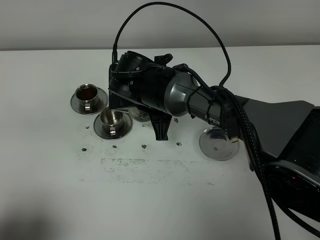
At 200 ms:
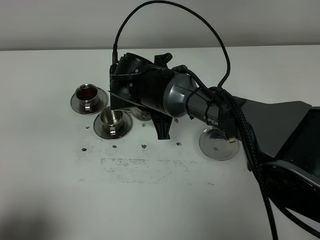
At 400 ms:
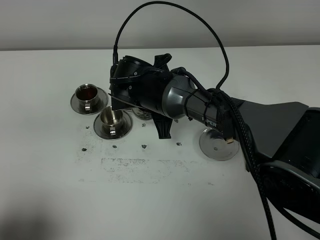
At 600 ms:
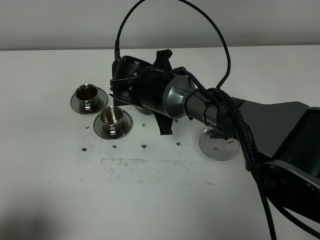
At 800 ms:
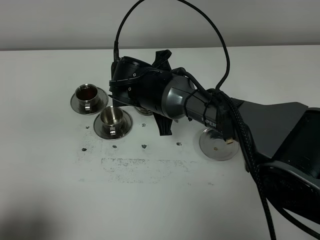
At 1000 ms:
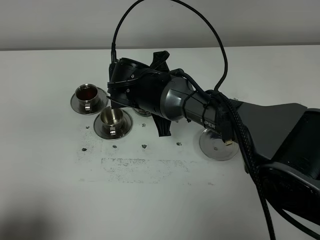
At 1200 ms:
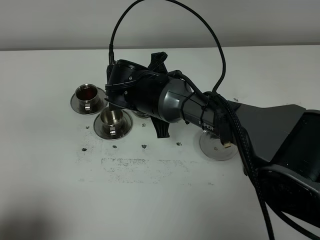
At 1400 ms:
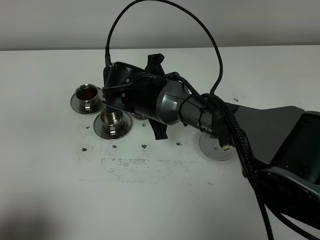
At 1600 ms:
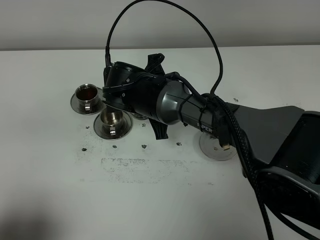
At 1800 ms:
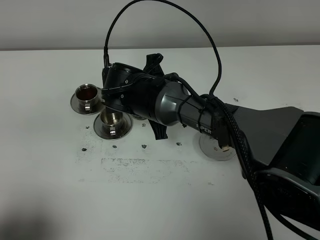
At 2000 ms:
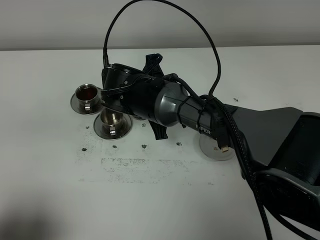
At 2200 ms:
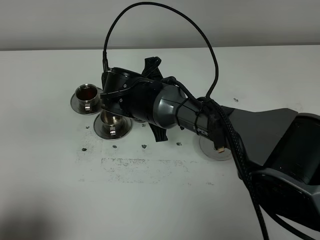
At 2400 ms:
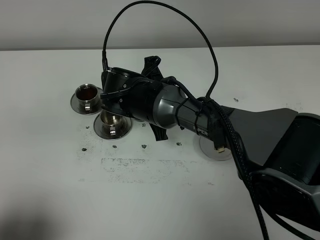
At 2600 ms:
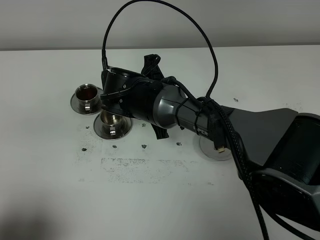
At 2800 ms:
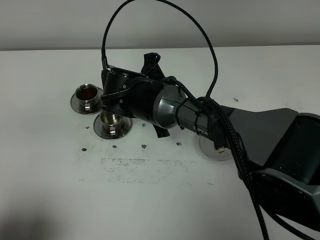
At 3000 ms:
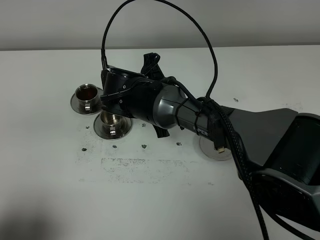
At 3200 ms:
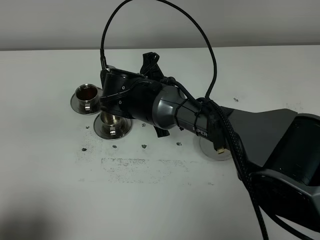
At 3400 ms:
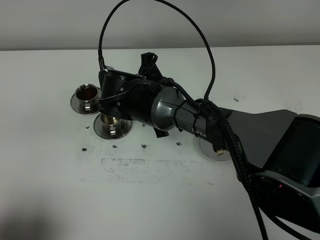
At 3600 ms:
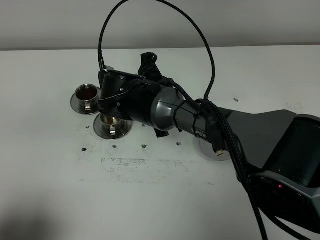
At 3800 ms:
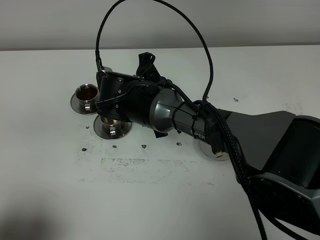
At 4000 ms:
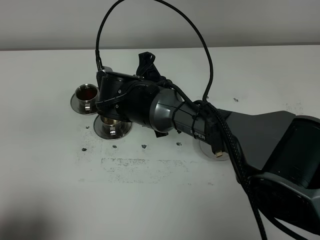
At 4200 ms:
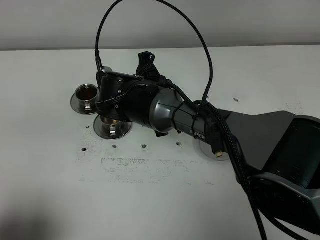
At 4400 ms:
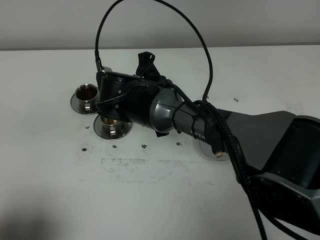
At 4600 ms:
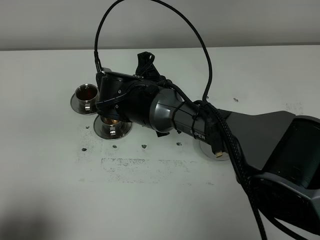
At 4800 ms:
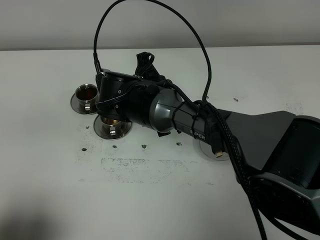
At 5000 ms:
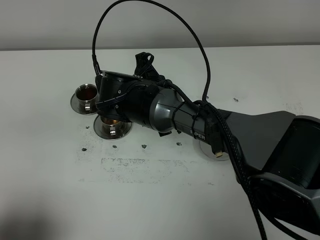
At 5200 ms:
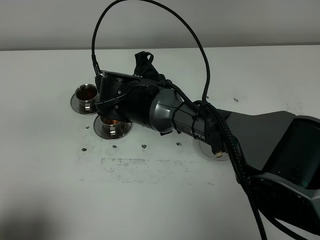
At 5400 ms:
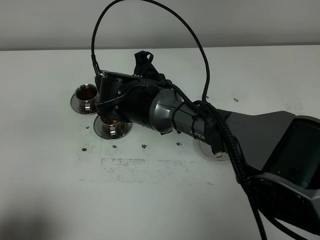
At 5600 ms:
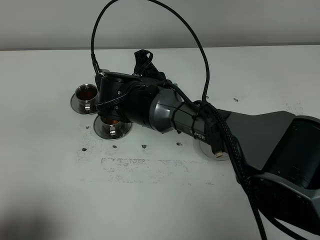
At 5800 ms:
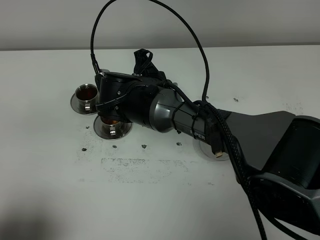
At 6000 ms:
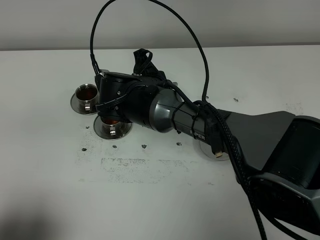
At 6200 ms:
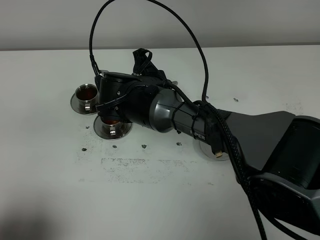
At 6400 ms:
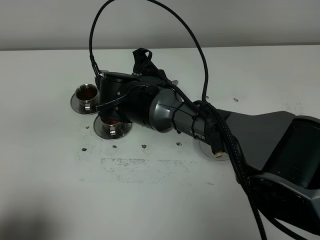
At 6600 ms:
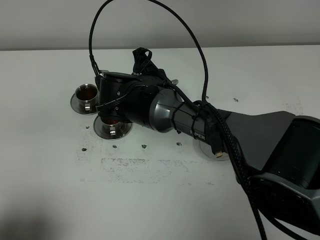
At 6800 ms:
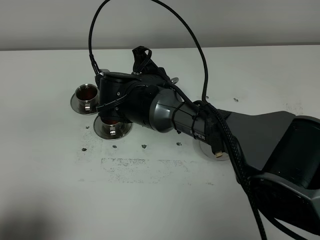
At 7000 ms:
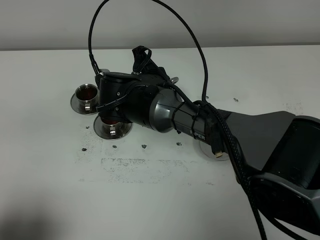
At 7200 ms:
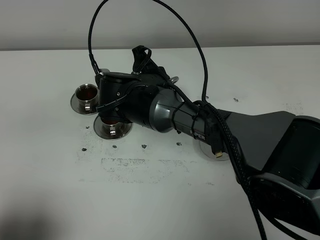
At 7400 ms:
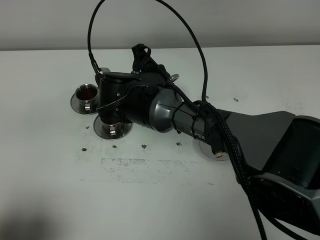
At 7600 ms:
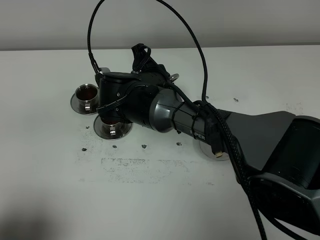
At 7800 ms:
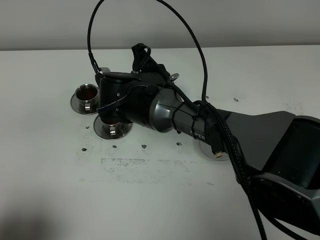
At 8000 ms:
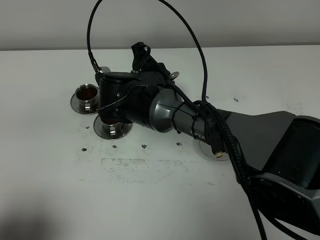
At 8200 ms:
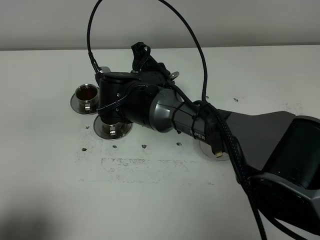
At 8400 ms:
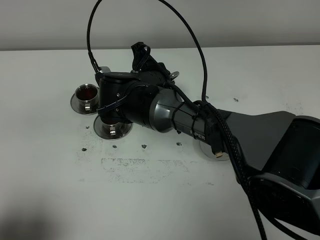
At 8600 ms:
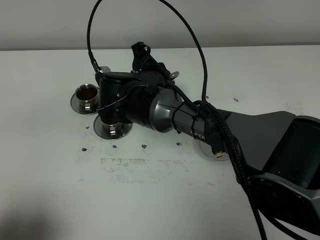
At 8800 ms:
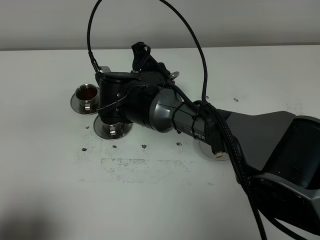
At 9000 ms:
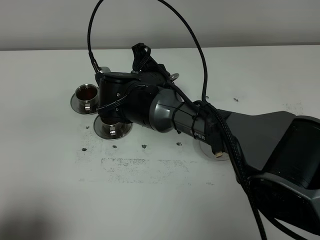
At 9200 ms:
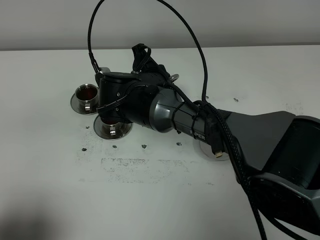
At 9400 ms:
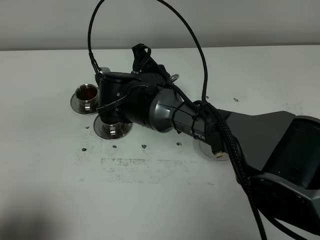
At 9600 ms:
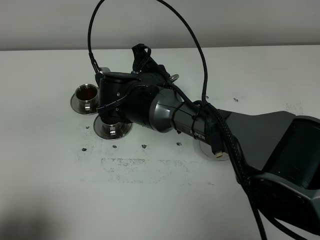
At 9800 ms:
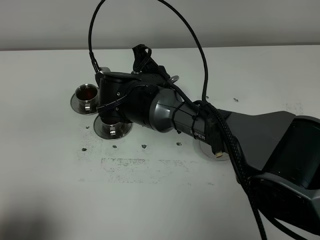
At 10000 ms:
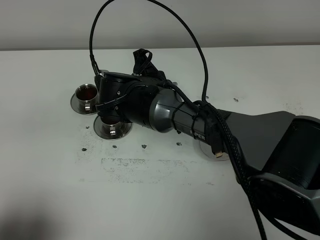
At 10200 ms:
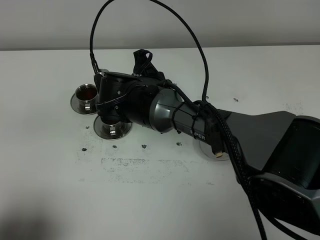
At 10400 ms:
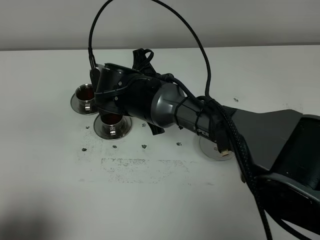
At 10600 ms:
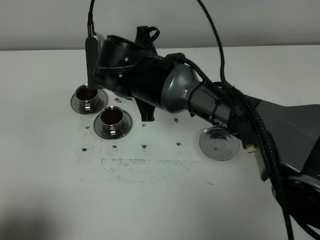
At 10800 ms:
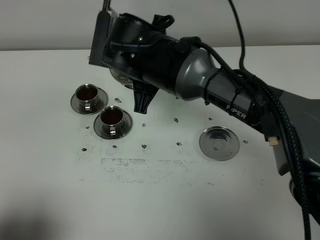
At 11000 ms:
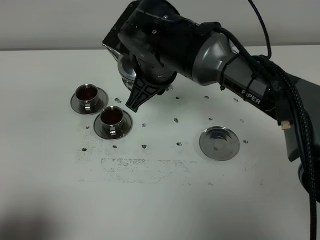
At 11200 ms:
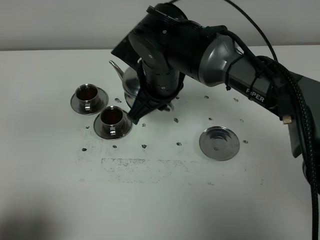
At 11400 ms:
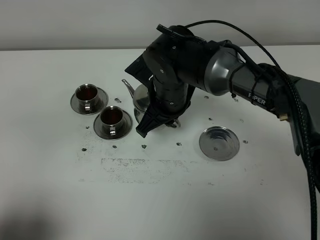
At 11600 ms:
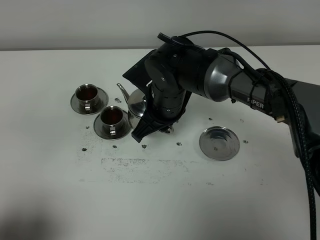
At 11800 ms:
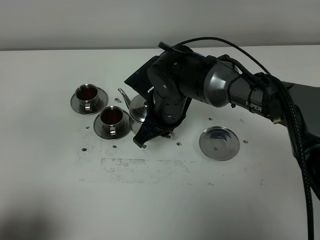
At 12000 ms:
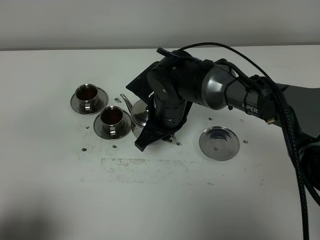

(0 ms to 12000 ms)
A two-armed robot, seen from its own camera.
Task of the whole recording: grasp the stainless steel teapot and pour the tea into the two stainless steel teacups one by one, put the stainless steel teapot back in its original place.
Step, 0 ms - 10400 ms: Pour tea into the teacup with the right gripper.
0 ms - 1600 ms: The grippers make only small movements.
1600 ms - 3000 ms: Both grippers stay about where they are.
3000 ms - 4400 ms: Both grippers stay about where they are.
4400 ms - 7600 ms: The grippers stay close to where they were, moving slightly.
7600 ms - 9000 ms: Both grippers stay about where they are.
9000 ms - 10400 ms: The grippers make only small movements.
10400 ms - 12000 ms: The right gripper shifts about 5 cm to the right.

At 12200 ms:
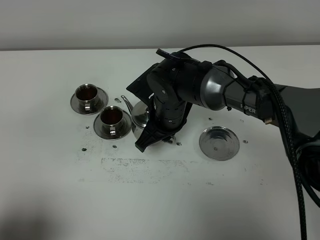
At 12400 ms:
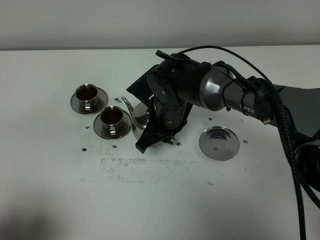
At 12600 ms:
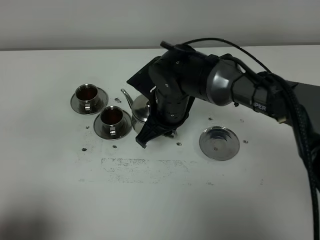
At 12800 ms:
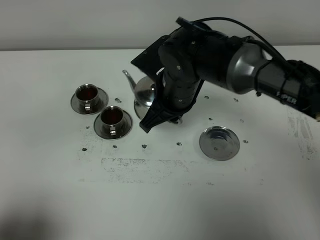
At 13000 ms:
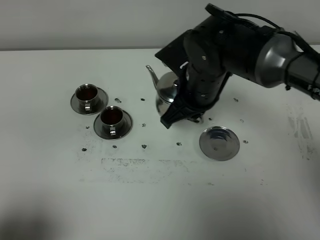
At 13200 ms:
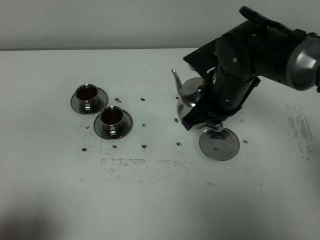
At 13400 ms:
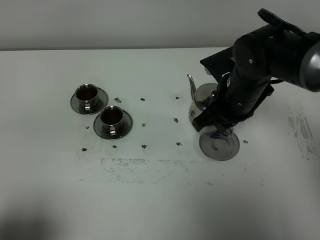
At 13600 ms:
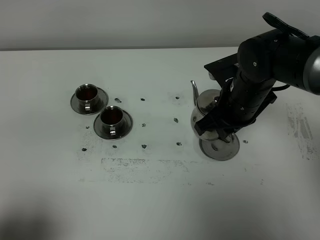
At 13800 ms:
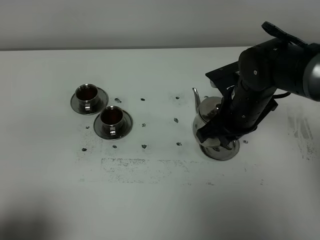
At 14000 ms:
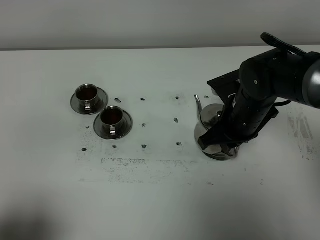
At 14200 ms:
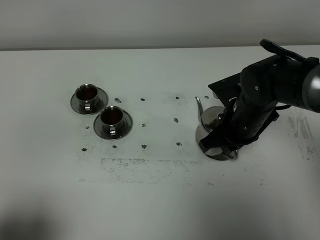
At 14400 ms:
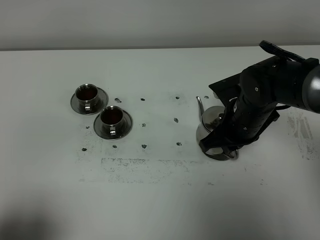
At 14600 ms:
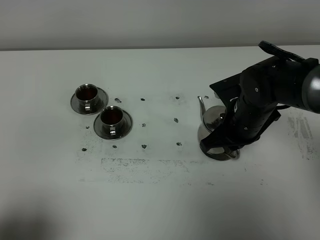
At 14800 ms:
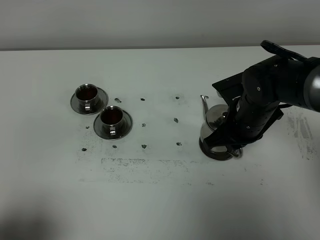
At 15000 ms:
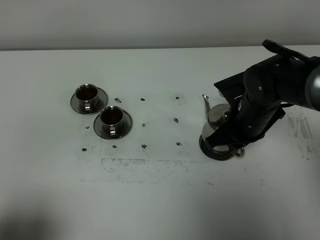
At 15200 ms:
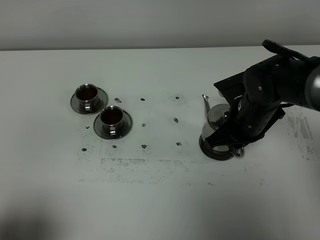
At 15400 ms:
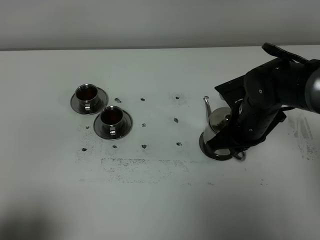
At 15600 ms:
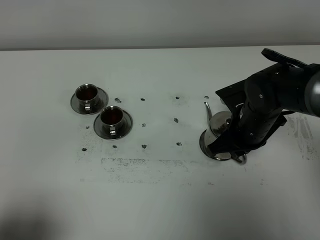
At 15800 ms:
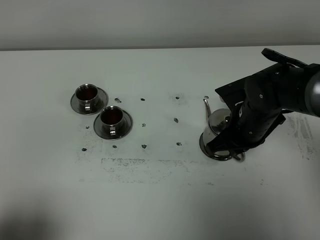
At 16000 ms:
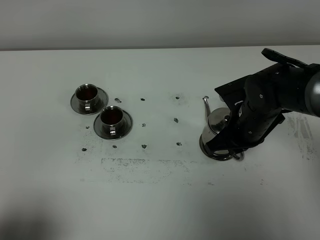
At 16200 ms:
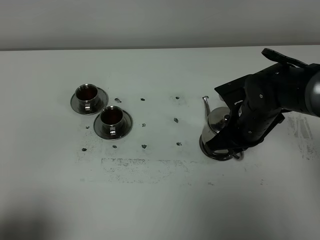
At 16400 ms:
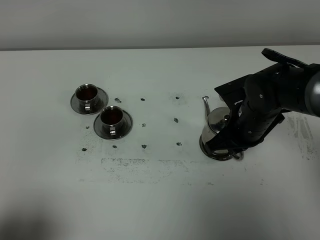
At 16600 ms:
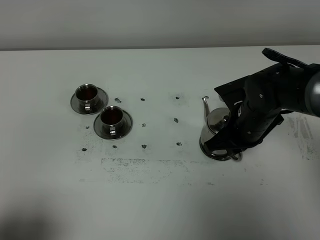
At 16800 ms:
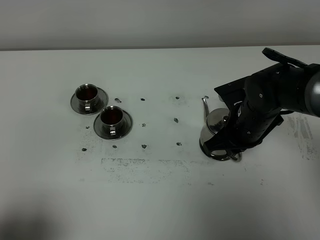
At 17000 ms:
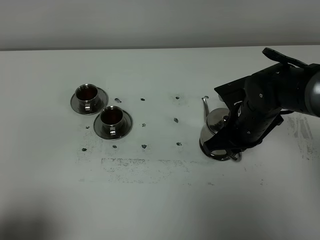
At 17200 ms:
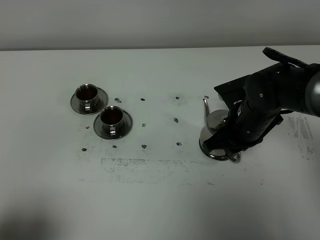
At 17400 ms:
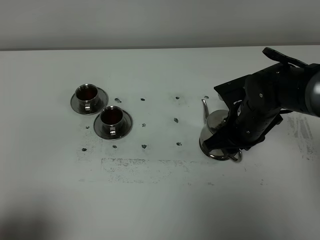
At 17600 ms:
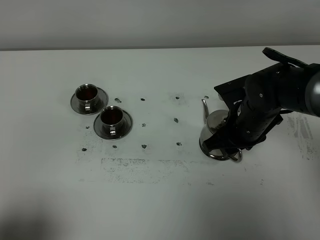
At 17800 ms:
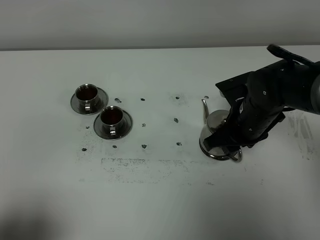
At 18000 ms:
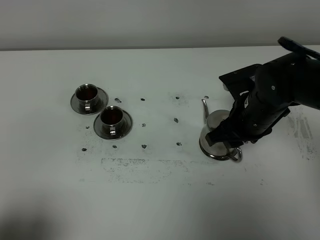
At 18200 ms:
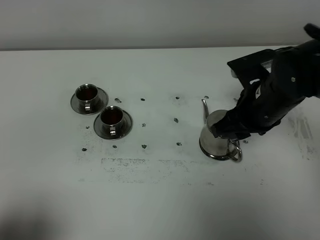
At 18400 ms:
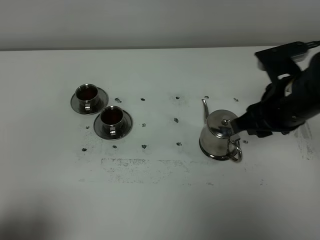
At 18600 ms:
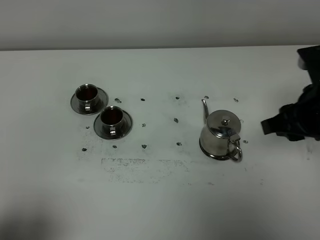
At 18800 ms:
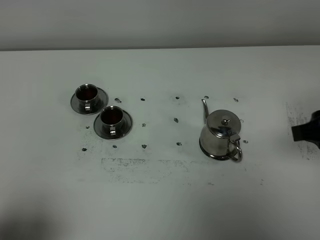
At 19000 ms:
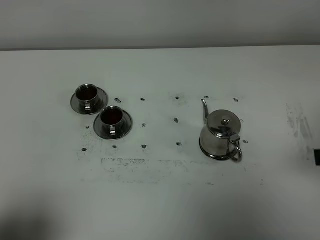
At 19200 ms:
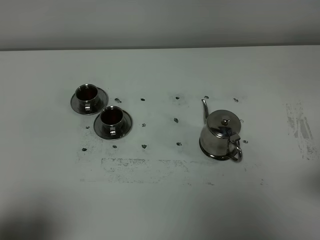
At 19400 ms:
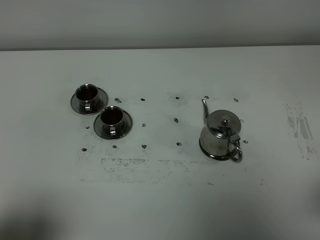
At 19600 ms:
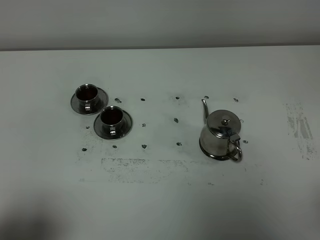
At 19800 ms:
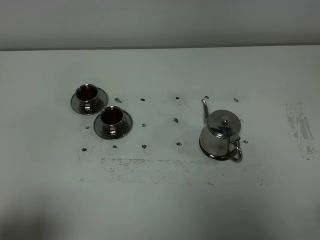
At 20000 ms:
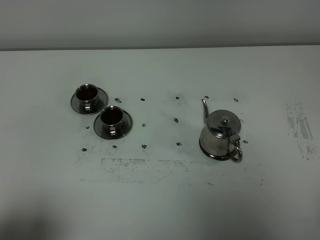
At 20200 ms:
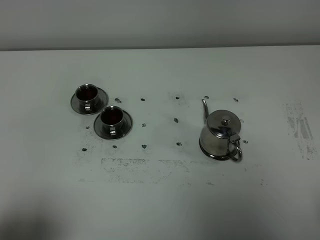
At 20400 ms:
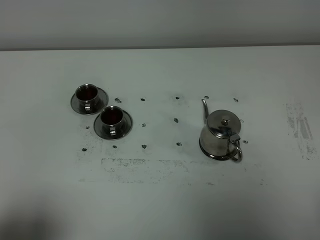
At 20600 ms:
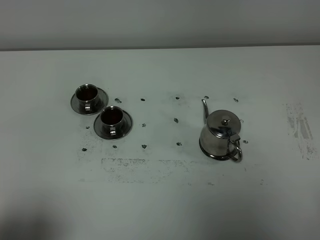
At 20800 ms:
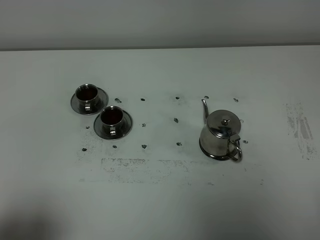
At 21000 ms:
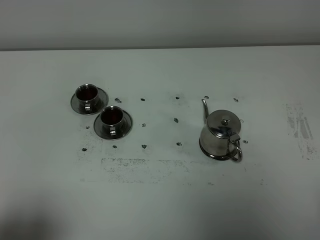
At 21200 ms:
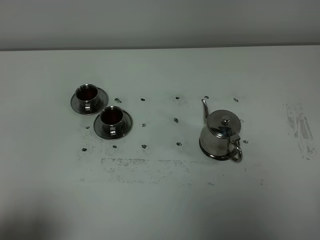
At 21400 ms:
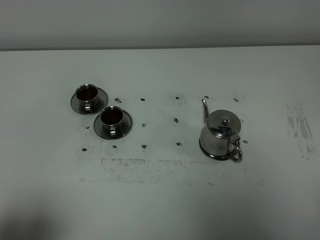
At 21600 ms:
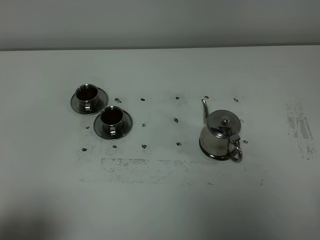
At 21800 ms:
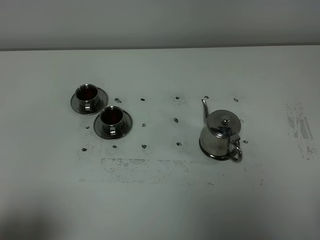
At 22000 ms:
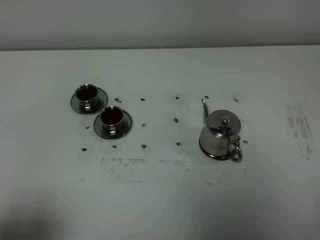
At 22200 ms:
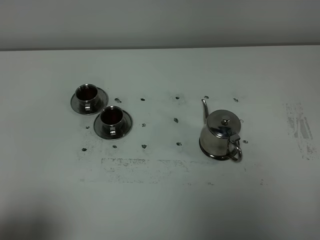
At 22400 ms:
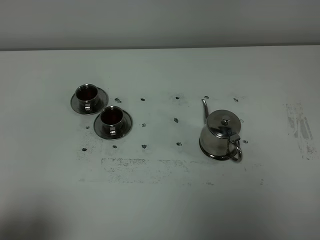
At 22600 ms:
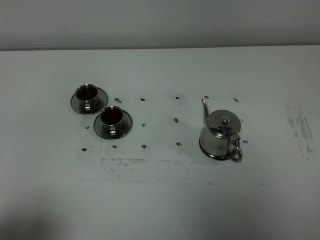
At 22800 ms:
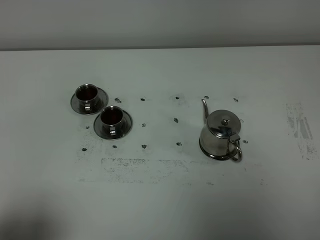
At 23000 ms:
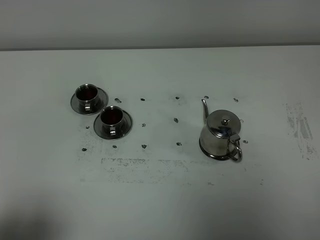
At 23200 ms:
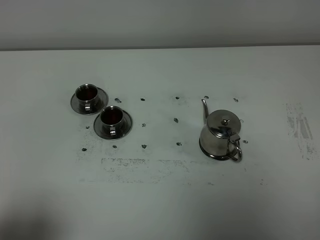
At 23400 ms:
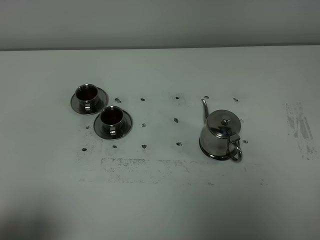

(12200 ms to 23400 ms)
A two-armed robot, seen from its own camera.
Task of the whole recording: grasp the stainless steel teapot and pour the tea into the two stainless steel teacups one by one, put the stainless steel teapot back in its original place.
12200 ms - 13800 ms: The right gripper moves to the right, some 15 cm.
13800 ms - 15400 ms: The grippers make only small movements.
15400 ms - 17000 ms: Neither gripper changes place.
17000 ms - 18600 ms: The right gripper goes approximately 15 cm upward, to the right and backward, and opens its fingers.
18600 ms - 20200 ms: The right gripper is displaced backward by roughly 25 cm.
